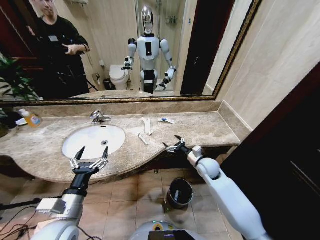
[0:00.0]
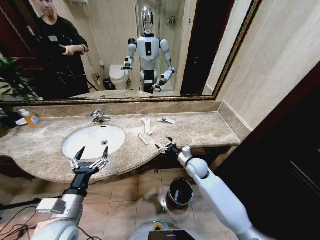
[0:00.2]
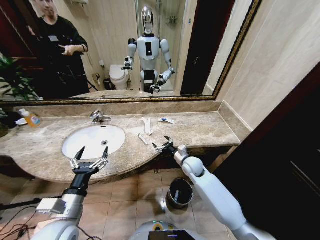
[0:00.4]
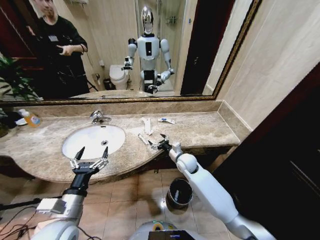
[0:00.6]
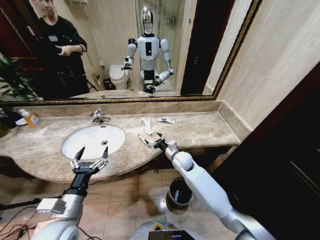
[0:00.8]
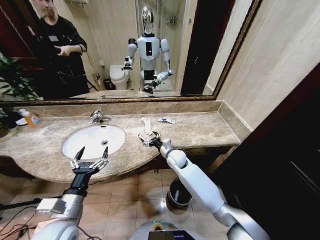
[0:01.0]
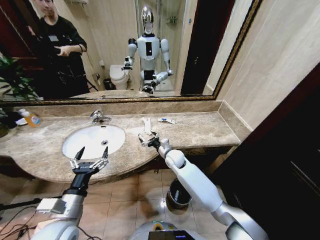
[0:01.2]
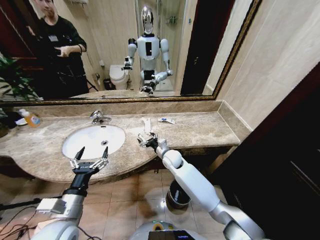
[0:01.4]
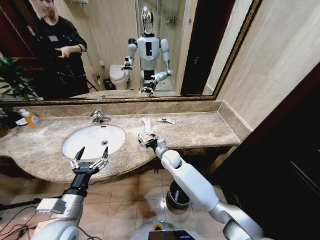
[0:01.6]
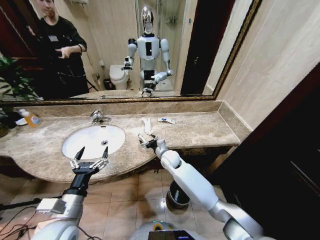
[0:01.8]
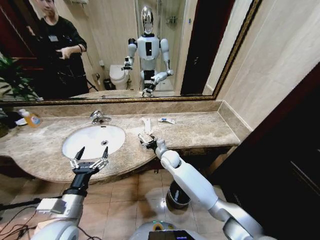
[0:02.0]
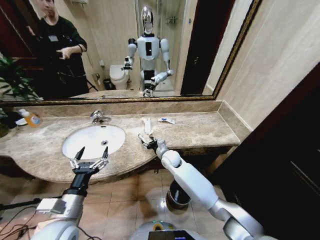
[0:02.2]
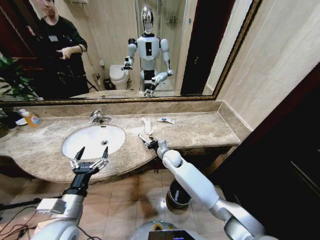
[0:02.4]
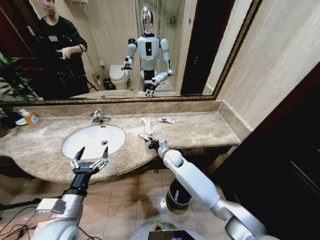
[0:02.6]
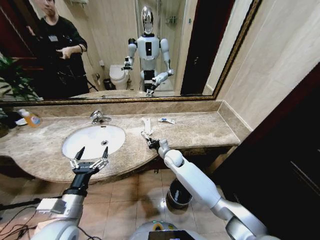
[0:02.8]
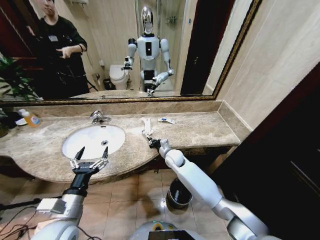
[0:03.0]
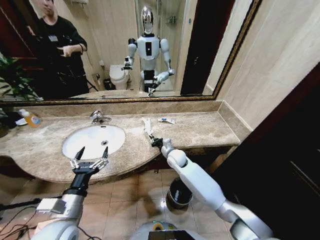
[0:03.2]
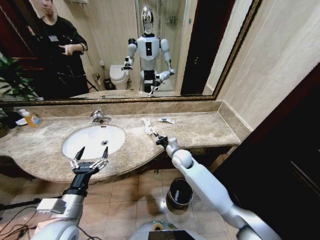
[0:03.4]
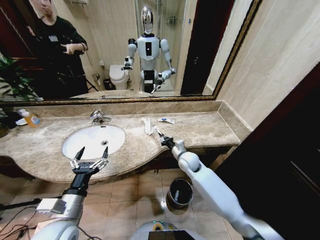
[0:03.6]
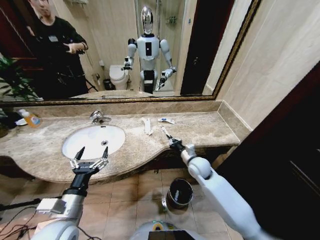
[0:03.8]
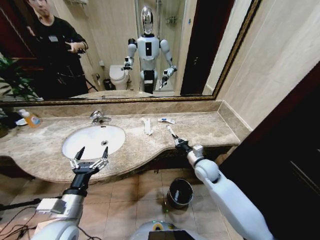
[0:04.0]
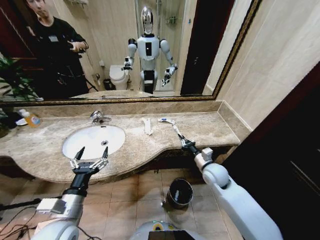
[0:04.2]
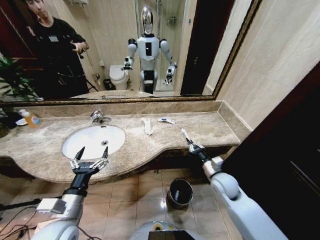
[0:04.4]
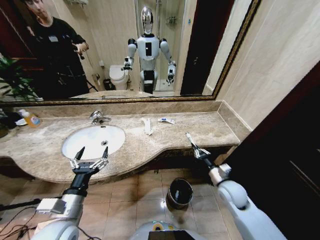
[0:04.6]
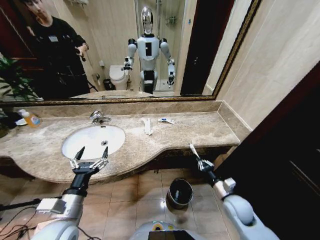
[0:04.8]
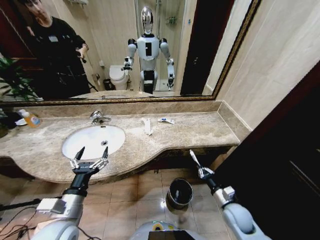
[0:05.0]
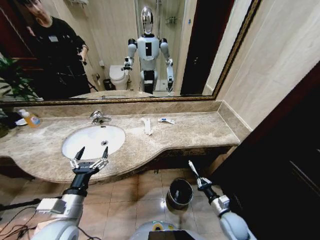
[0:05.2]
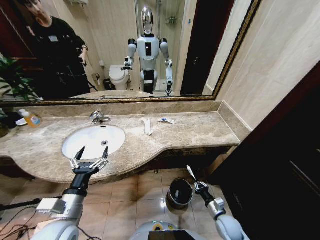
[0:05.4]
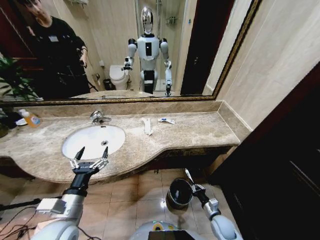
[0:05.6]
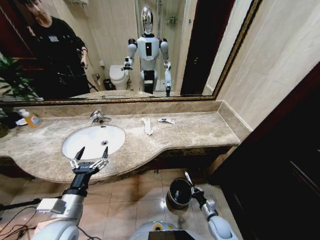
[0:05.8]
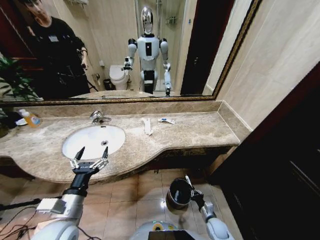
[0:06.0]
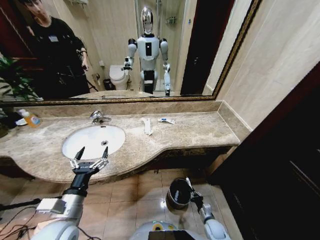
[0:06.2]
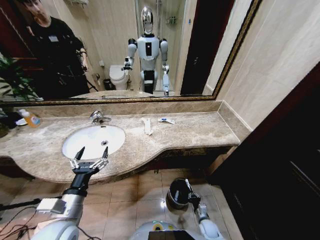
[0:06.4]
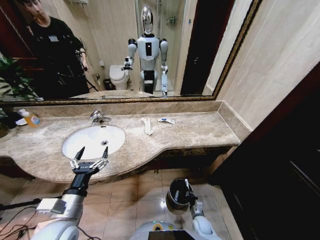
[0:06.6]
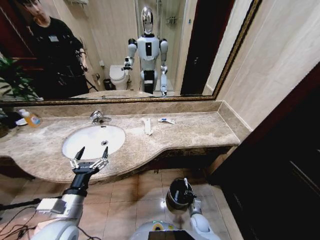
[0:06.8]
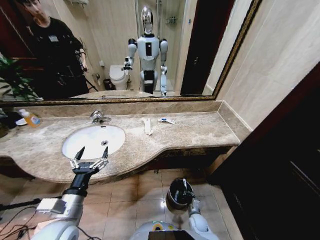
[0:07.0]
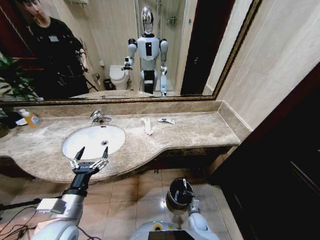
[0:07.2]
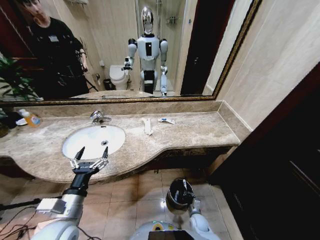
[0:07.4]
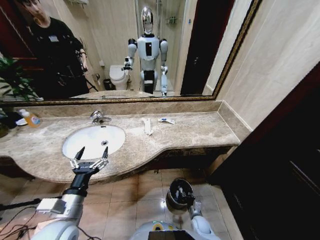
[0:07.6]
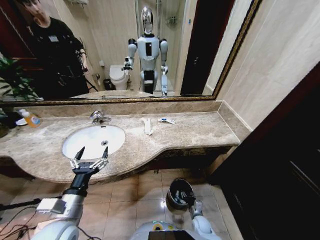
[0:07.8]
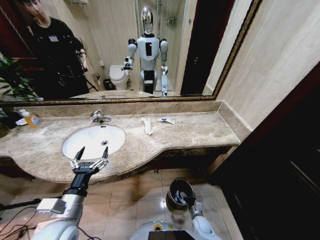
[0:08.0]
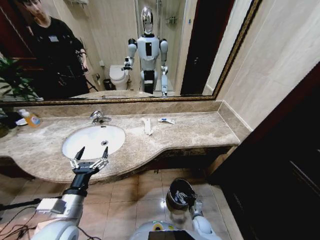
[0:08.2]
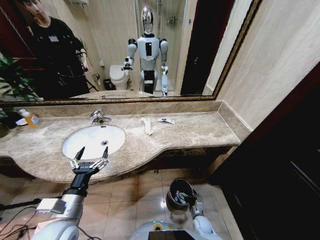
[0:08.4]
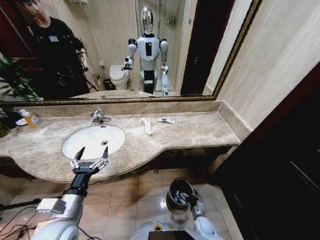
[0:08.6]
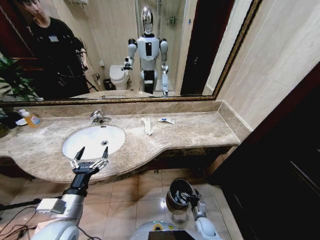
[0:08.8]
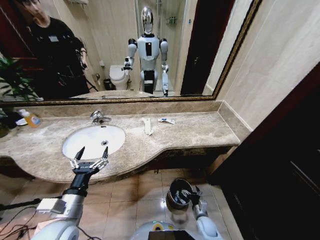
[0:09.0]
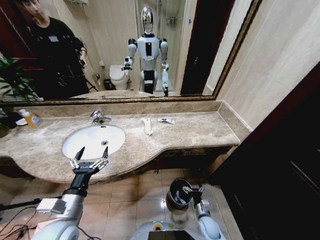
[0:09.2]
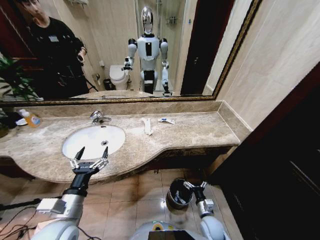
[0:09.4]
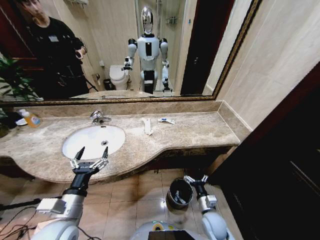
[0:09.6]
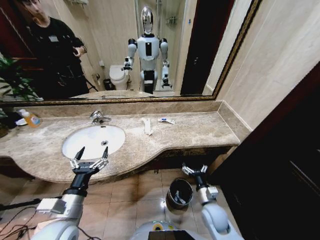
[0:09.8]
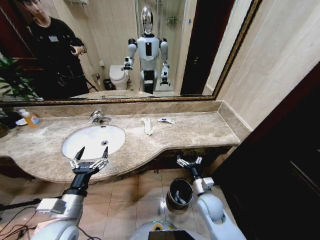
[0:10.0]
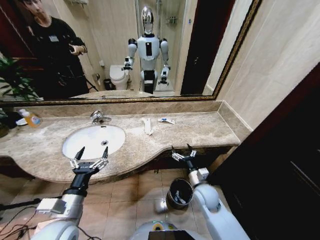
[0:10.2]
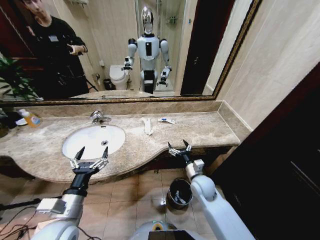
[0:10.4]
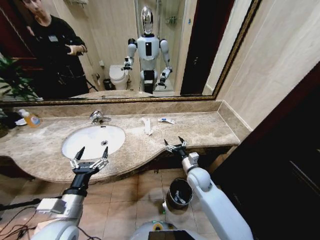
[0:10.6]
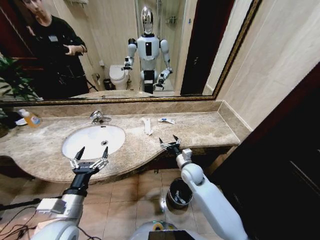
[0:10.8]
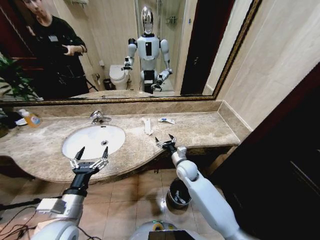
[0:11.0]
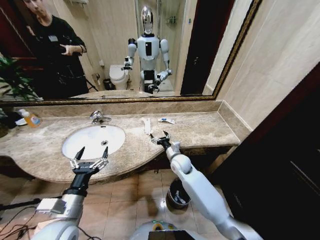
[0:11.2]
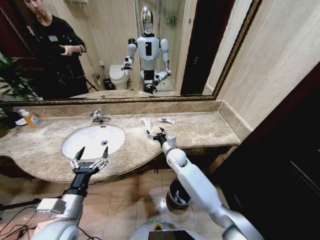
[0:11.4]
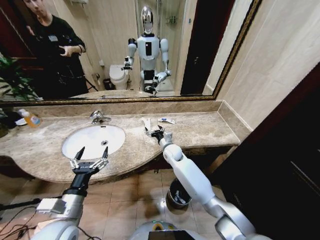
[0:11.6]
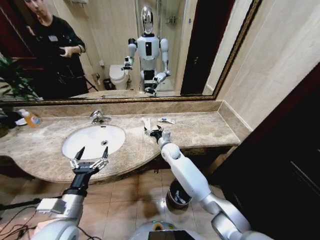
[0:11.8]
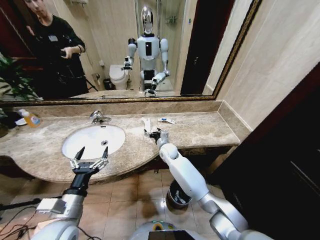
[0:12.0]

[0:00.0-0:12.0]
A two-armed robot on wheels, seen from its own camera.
Task of the whole recording: Pick up the trash from the sink and place it in the trash bin.
0:00.0 to 0:01.6: The right gripper is displaced to the left by approximately 15 cm.
0:01.6 to 0:03.0: The right gripper closes its fingers.
0:03.0 to 0:04.4: The right gripper goes some 25 cm to the right and backward.
0:04.4 to 0:06.0: The right gripper heads downward and backward, covering some 30 cm.
0:06.0 to 0:07.6: The right gripper goes roughly 5 cm to the left.
0:07.6 to 0:09.0: The right gripper opens its fingers.
0:09.0 to 0:10.4: The right gripper travels upward and forward by approximately 25 cm.
0:10.4 to 0:12.0: The right gripper goes about 20 cm forward and to the left.

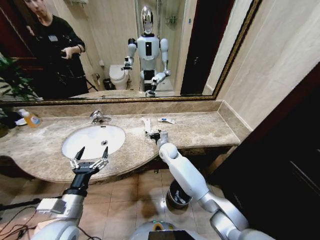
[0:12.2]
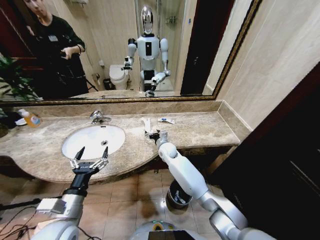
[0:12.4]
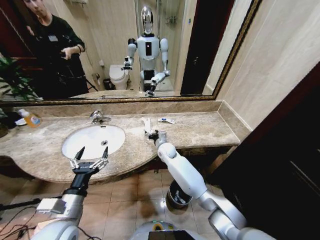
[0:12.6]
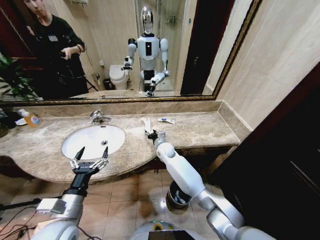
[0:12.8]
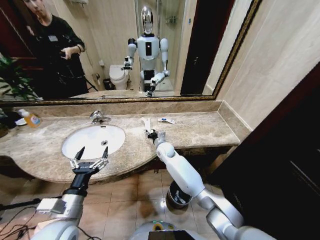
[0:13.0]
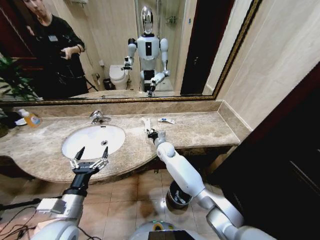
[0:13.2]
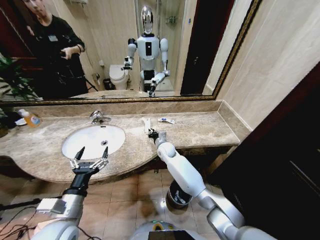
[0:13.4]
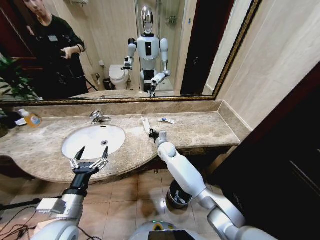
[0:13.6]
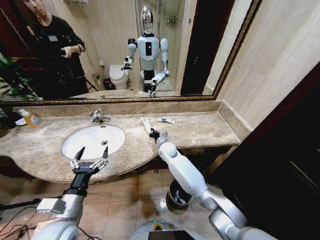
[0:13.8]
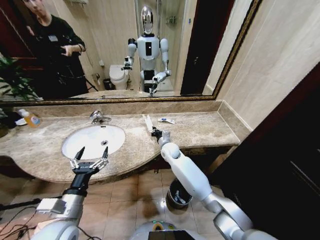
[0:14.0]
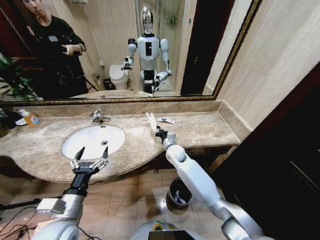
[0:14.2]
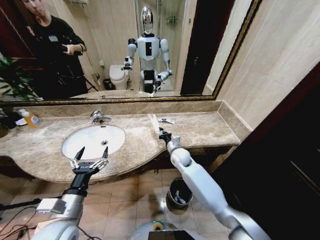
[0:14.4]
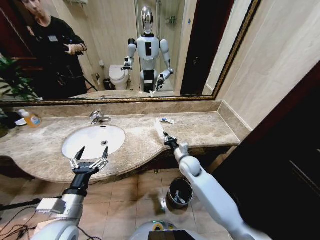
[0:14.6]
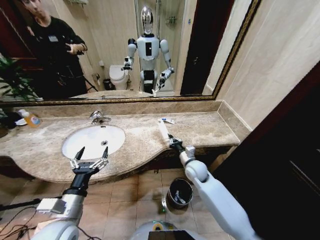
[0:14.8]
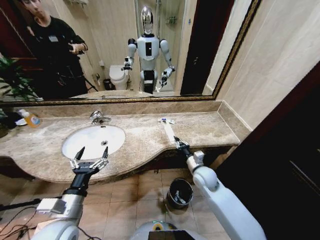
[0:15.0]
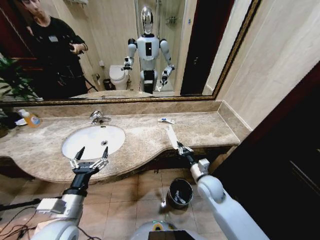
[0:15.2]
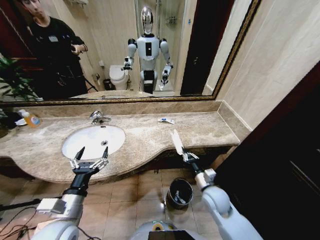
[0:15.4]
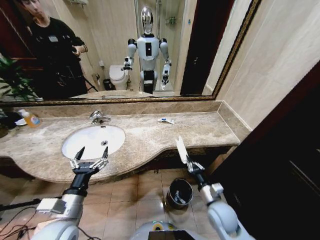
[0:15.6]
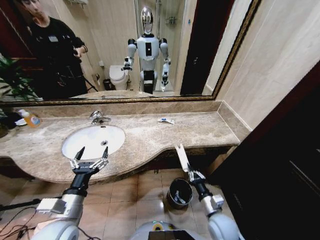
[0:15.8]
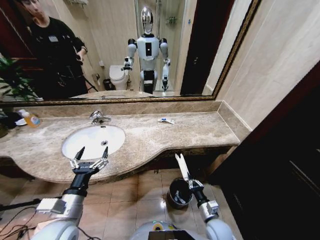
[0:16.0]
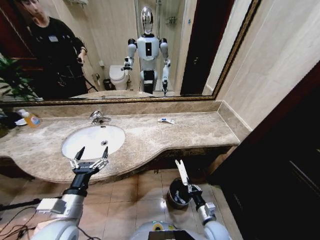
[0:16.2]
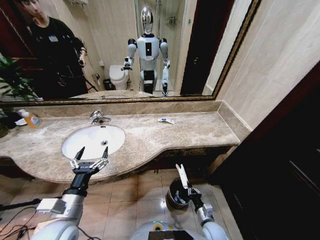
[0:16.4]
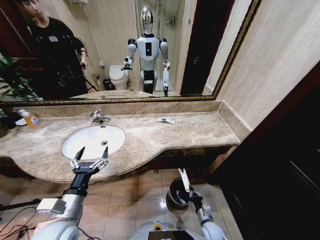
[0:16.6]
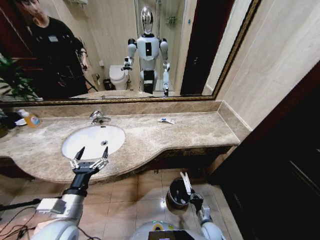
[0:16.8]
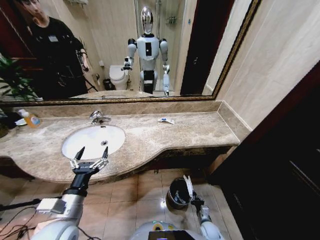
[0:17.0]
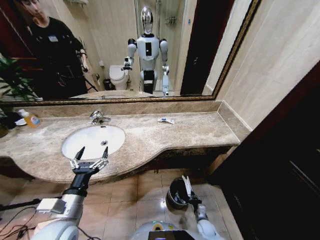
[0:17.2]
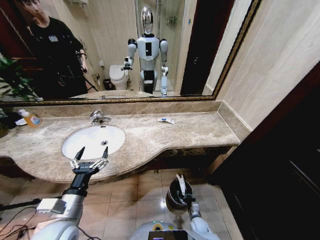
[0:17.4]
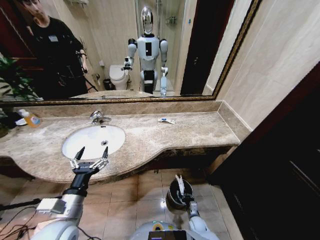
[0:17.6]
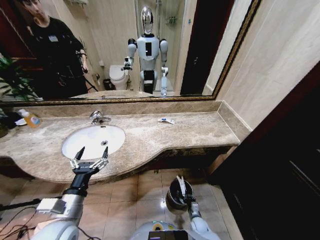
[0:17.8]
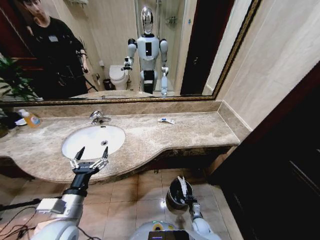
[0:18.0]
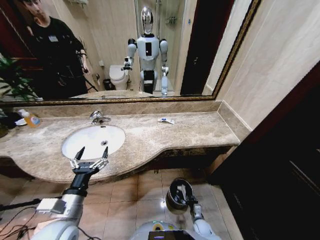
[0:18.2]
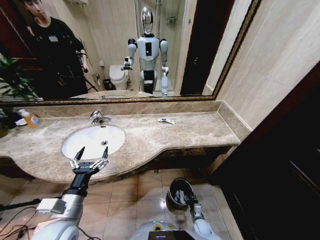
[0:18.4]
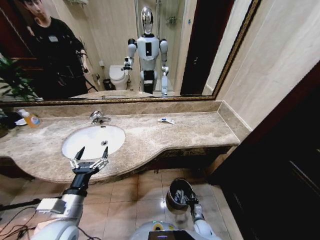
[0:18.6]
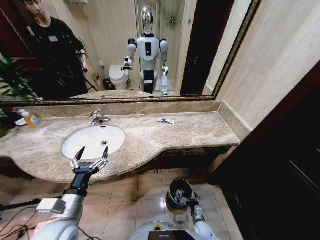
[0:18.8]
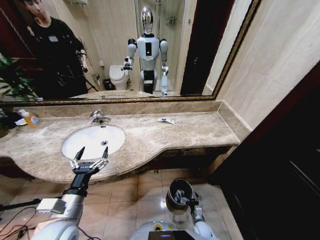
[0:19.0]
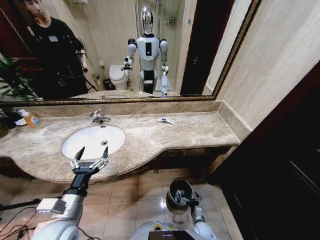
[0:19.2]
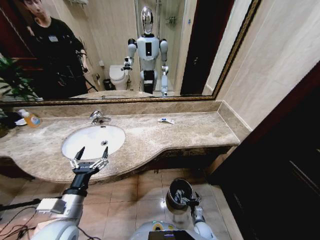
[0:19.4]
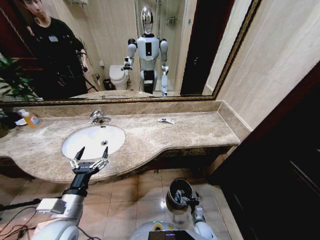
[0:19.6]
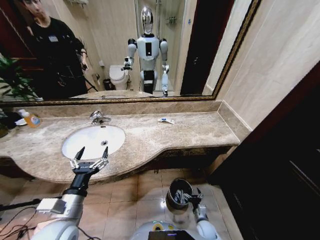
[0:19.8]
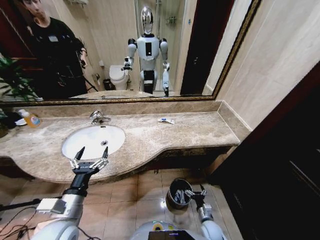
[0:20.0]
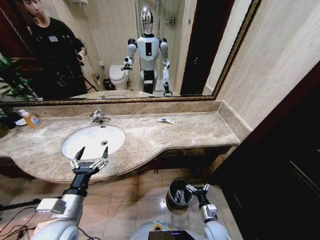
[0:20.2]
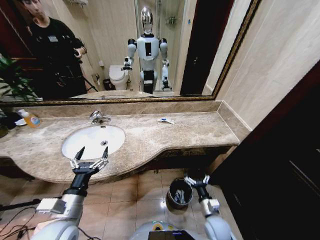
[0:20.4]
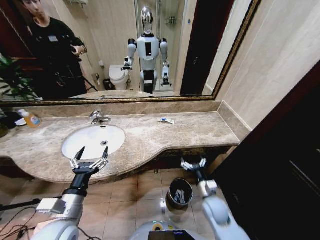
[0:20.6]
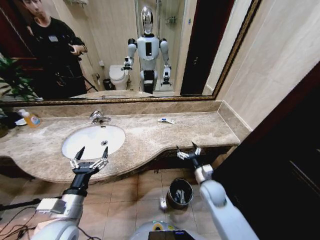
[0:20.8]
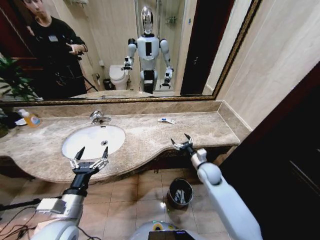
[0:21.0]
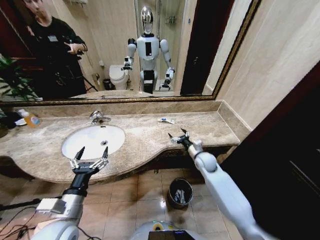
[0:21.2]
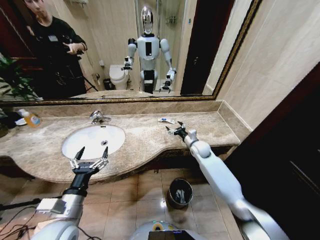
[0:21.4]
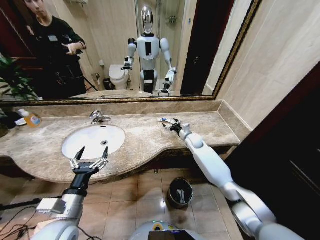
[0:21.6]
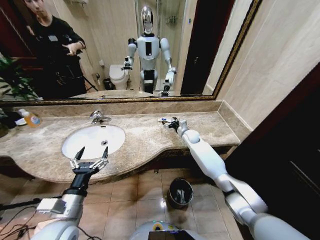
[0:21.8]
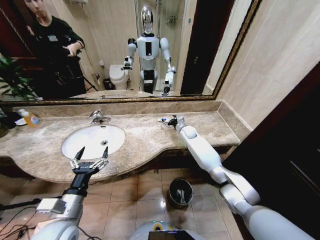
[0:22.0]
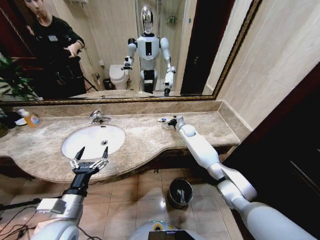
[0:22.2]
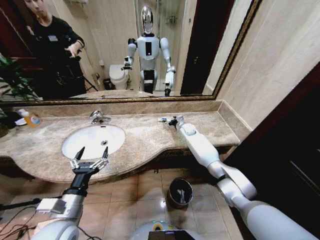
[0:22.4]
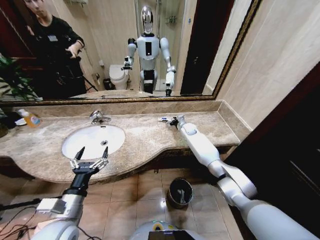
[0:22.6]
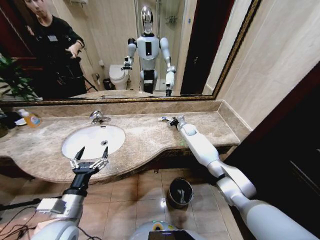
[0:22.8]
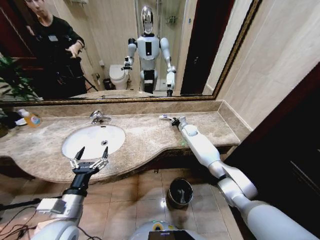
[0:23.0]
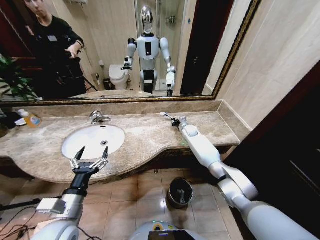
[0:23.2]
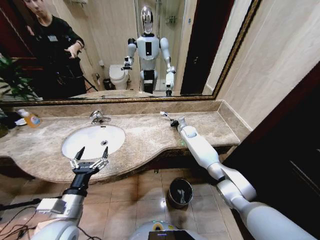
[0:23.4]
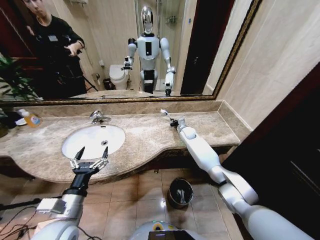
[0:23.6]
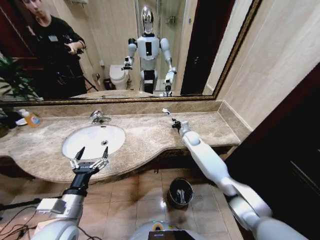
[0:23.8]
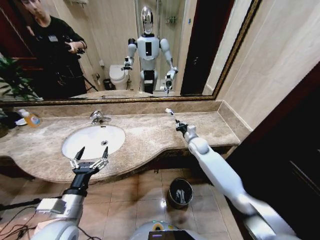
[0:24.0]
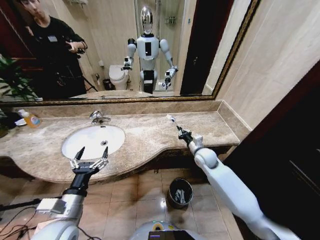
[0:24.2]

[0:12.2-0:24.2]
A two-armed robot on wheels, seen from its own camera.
Task of the whole recording: Pick up the trash from the sink and place it in the trash bin.
0:12.2 to 0:13.8: The right gripper closes its fingers.
0:13.8 to 0:15.2: The right gripper moves backward and to the right, about 25 cm.
0:15.2 to 0:16.6: The right gripper goes some 25 cm downward and backward.
0:16.6 to 0:18.2: The right gripper goes about 10 cm downward.
0:18.2 to 0:19.8: The right gripper opens its fingers.
0:19.8 to 0:21.2: The right gripper heads upward and forward, covering approximately 40 cm.
0:21.2 to 0:22.6: The right gripper shifts roughly 20 cm forward.
0:22.6 to 0:24.2: The right gripper is displaced backward by some 20 cm, and closes.
